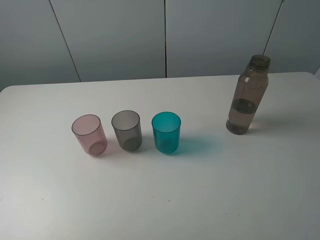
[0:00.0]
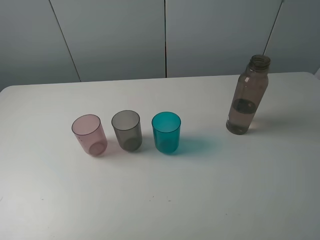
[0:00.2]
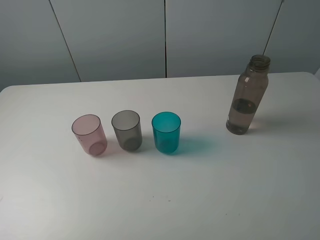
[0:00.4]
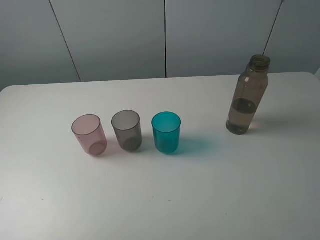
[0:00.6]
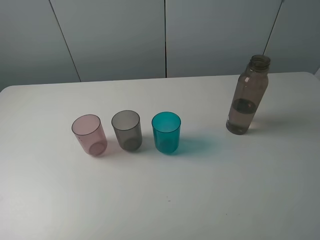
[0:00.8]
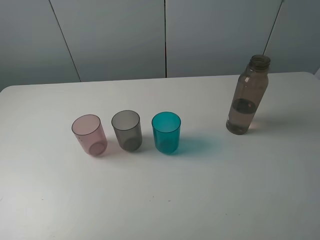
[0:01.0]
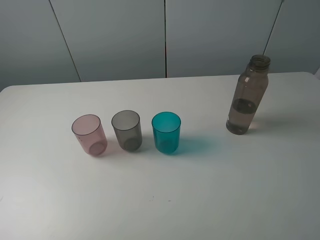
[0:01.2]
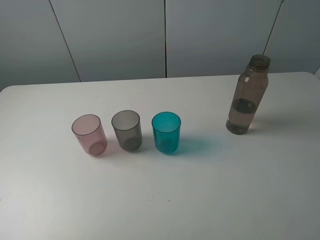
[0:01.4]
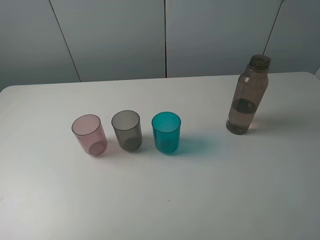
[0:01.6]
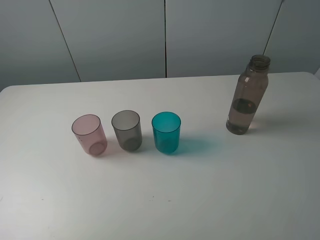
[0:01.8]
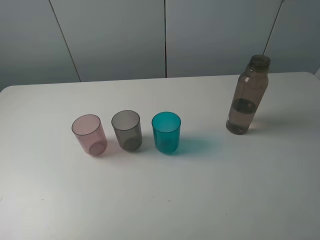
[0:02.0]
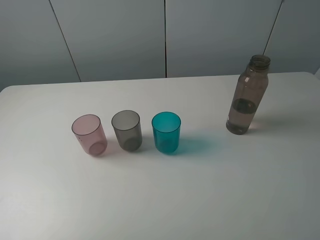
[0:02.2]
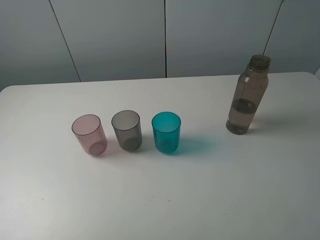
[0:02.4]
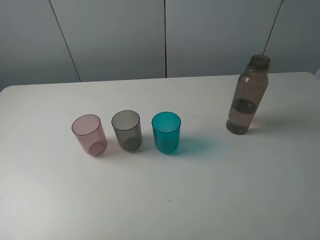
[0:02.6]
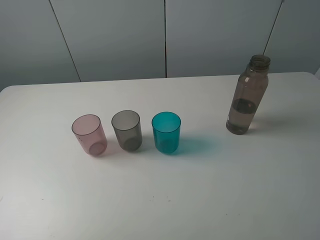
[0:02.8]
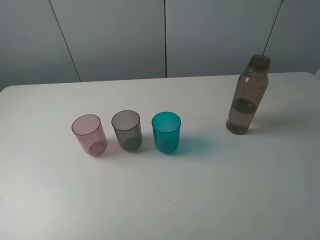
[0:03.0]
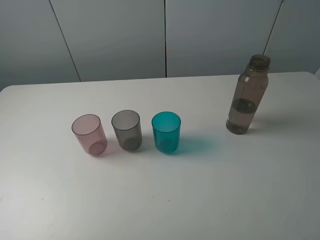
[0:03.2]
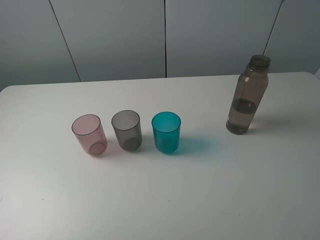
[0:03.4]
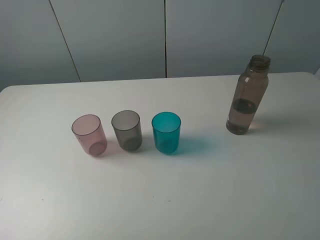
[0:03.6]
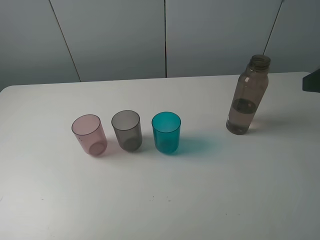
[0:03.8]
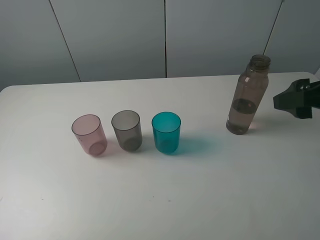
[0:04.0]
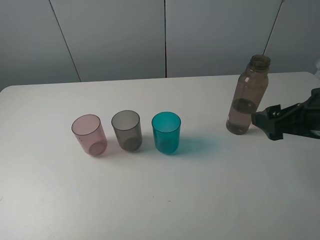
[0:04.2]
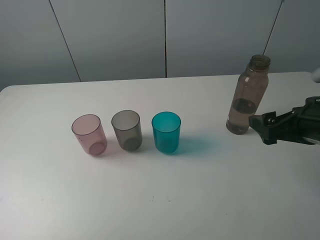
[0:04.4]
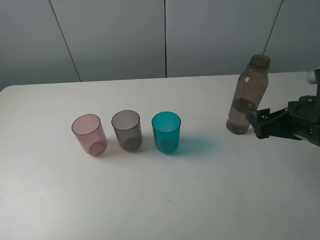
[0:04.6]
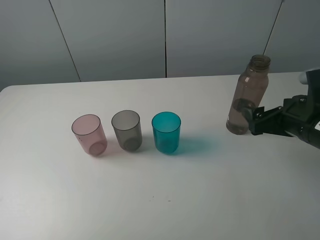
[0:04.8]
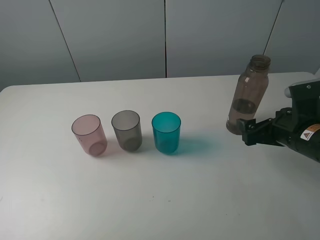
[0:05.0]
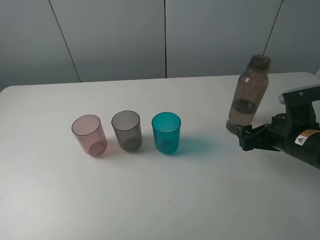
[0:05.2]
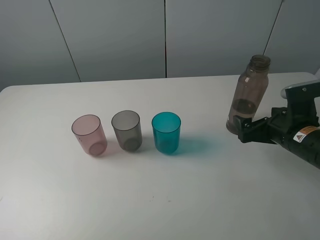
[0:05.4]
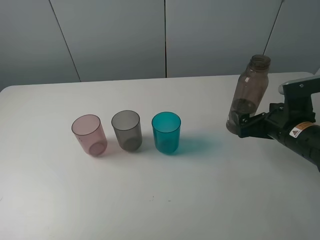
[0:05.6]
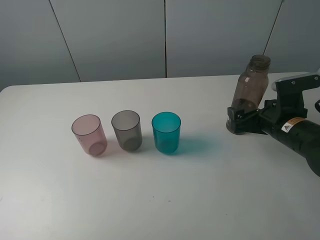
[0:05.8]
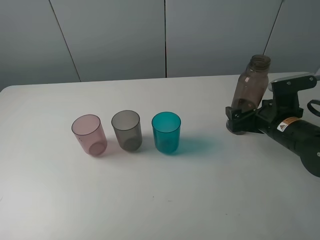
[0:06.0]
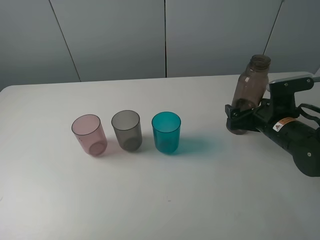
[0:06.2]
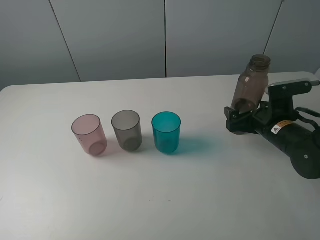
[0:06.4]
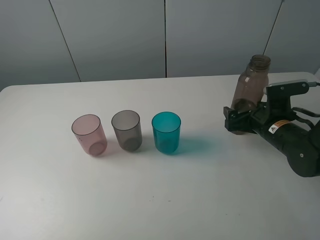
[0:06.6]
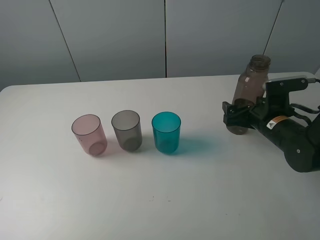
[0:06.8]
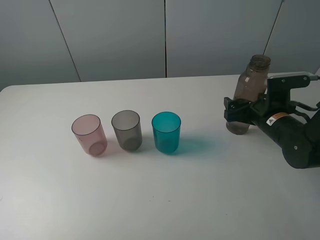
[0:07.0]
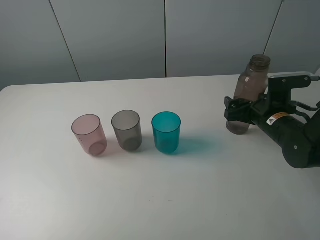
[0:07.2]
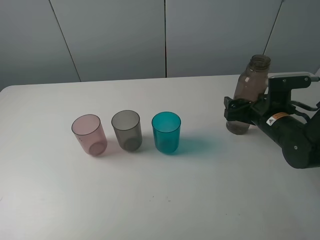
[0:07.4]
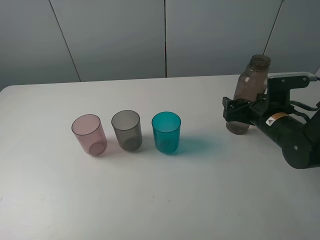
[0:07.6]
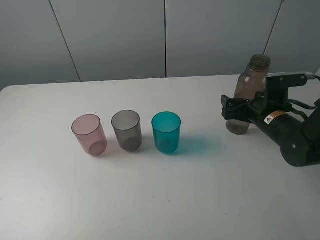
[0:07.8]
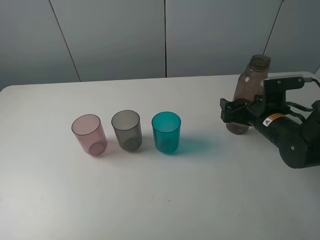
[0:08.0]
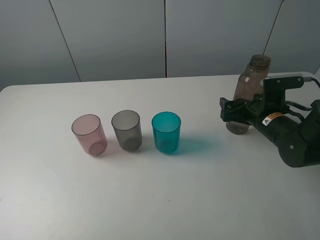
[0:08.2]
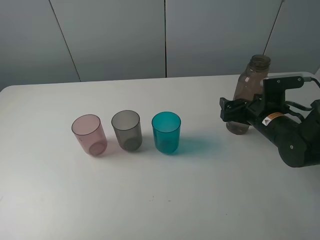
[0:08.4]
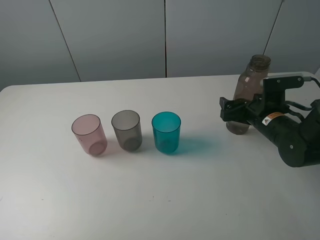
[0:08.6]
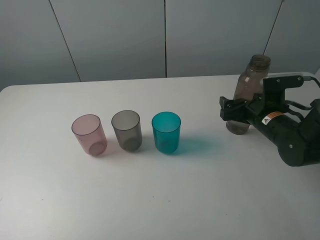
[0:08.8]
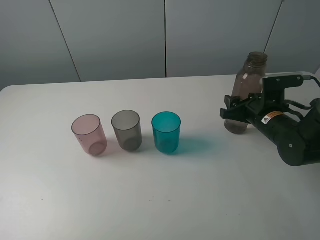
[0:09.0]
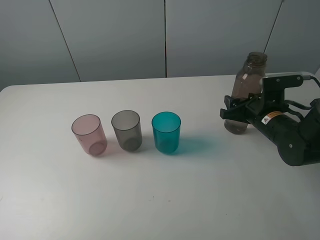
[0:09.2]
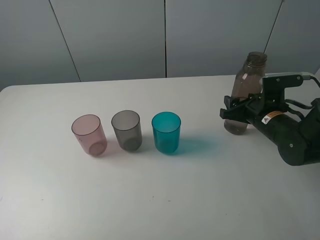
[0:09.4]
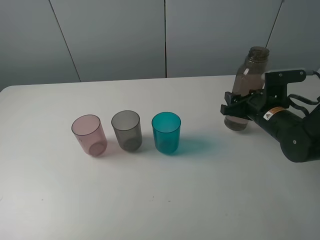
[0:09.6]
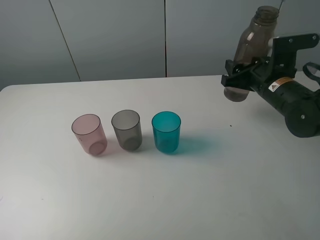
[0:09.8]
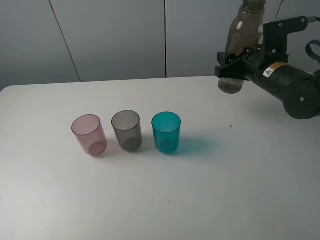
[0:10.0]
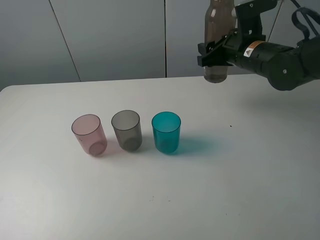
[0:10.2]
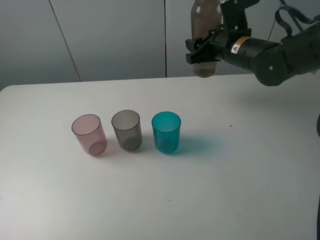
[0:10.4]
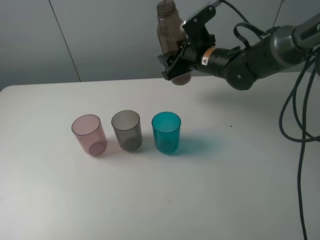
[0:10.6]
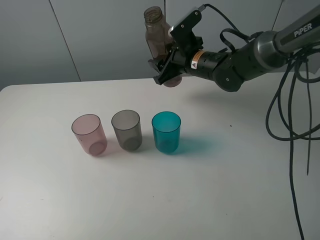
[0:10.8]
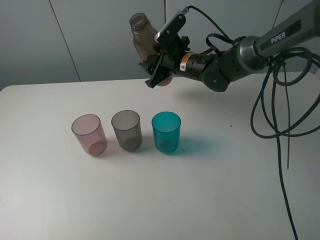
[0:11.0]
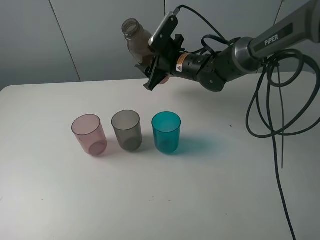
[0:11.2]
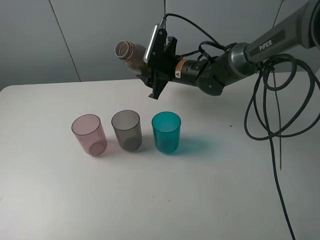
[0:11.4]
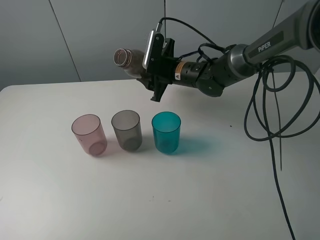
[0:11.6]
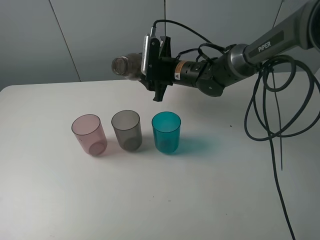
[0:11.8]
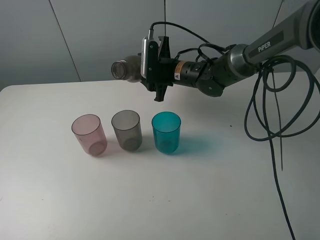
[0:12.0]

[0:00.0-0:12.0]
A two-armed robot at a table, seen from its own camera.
Task of the whole recording: pick up the bottle filled with water and pour water into the middle cup of the three cups.
Step, 0:00.0 to 0:09.2: Grasp the brown bottle with the right gripper.
0:00.0 to 0:03.0: Neither gripper changes place.
0:03.0 to 0:04.4: The right gripper travels forward and downward by approximately 20 cm.
0:04.4 to 0:06.0: The right gripper shifts roughly 10 cm downward and forward.
0:06.0 to 0:07.6: The grippers make only small movements.
0:07.6 to 0:09.0: The right gripper closes.
0:09.0 to 0:10.4: The right gripper shifts approximately 15 cm upward, forward and to the left.
0:10.4 to 0:12.0: The right gripper moves to the left and downward, approximately 10 cm.

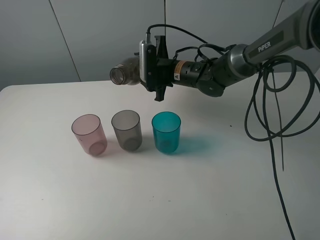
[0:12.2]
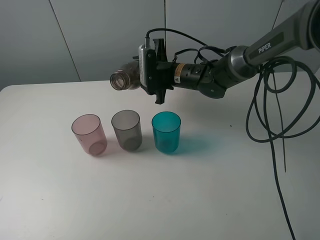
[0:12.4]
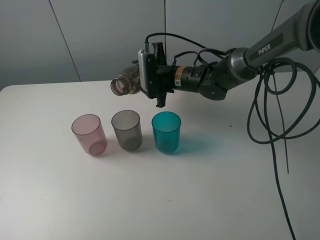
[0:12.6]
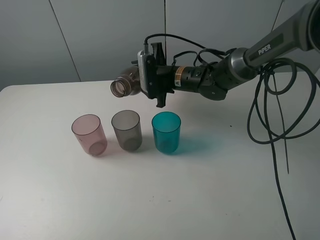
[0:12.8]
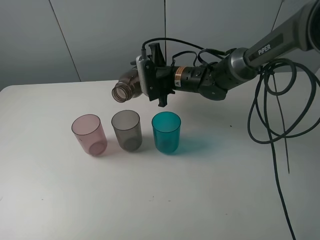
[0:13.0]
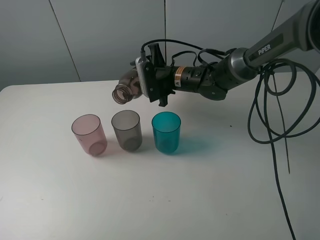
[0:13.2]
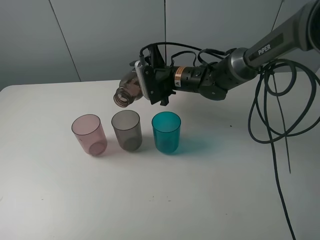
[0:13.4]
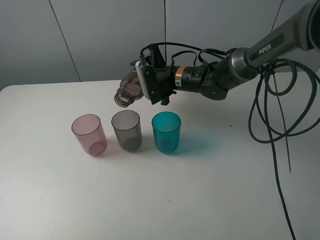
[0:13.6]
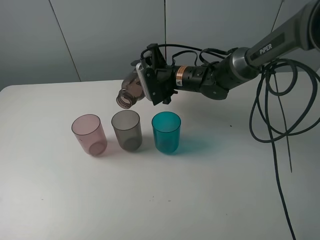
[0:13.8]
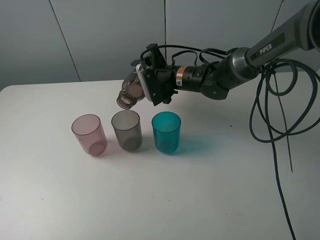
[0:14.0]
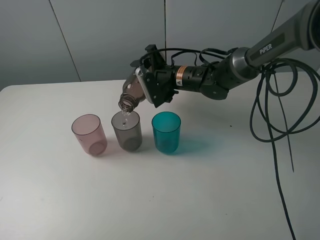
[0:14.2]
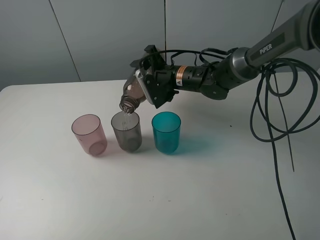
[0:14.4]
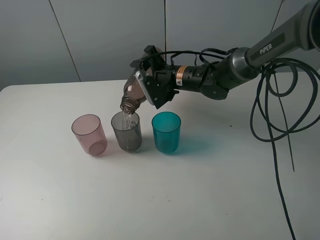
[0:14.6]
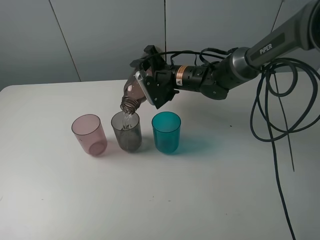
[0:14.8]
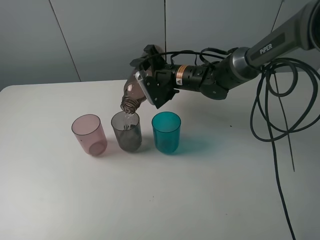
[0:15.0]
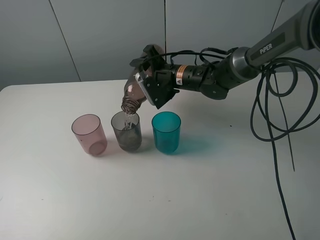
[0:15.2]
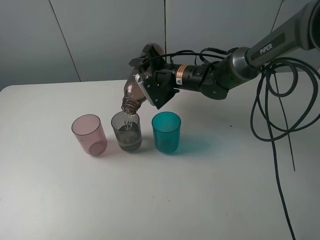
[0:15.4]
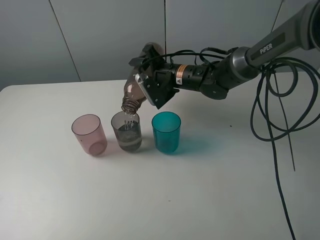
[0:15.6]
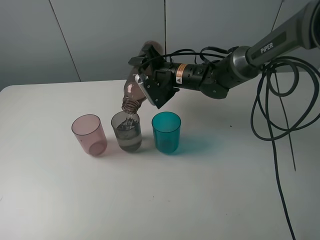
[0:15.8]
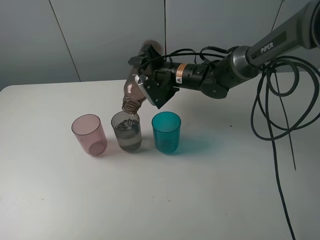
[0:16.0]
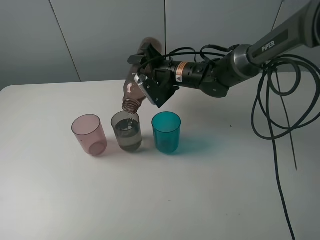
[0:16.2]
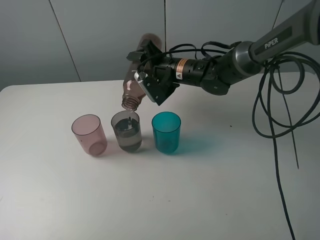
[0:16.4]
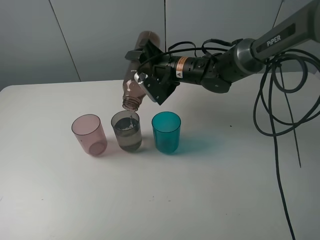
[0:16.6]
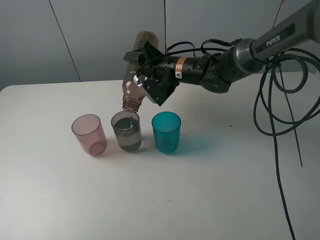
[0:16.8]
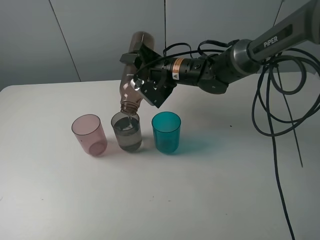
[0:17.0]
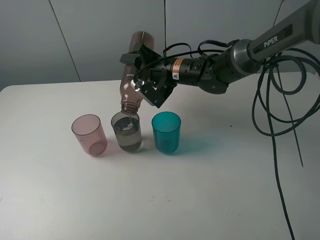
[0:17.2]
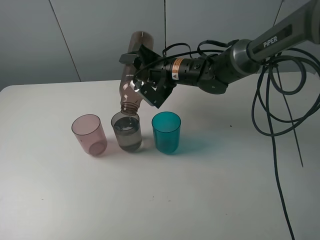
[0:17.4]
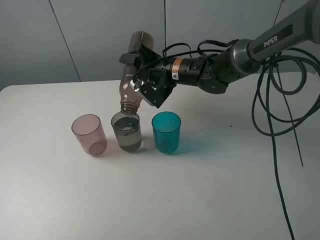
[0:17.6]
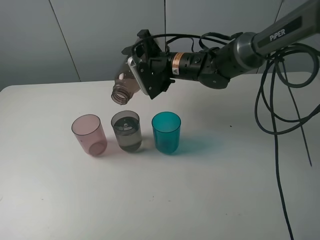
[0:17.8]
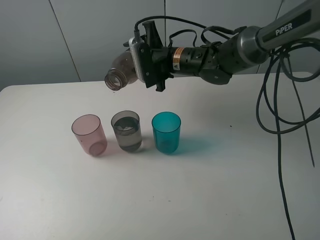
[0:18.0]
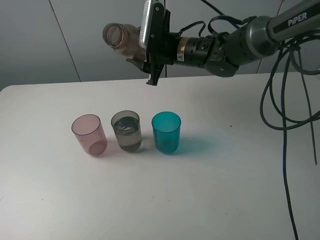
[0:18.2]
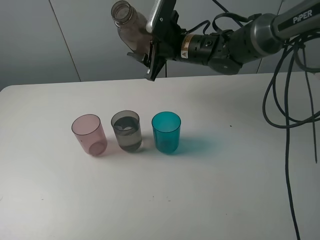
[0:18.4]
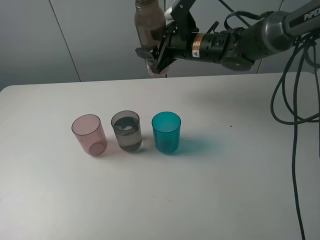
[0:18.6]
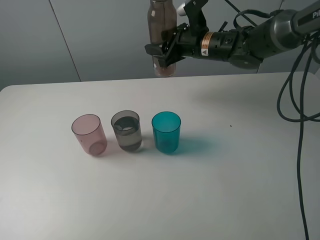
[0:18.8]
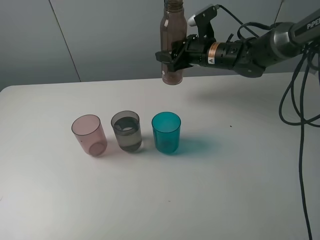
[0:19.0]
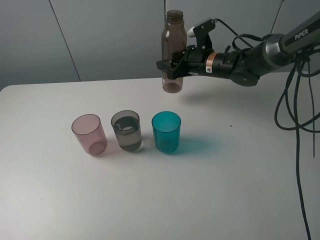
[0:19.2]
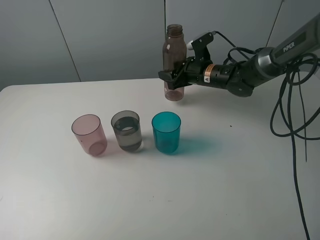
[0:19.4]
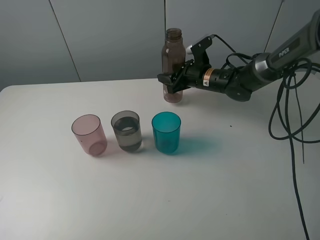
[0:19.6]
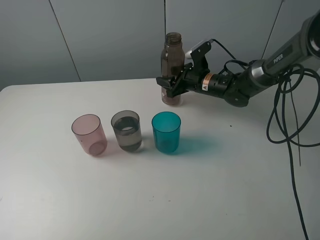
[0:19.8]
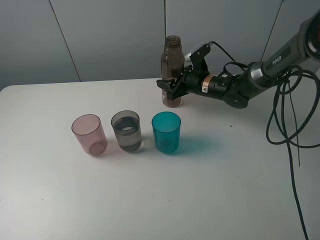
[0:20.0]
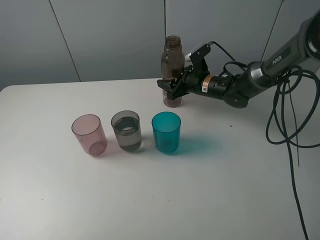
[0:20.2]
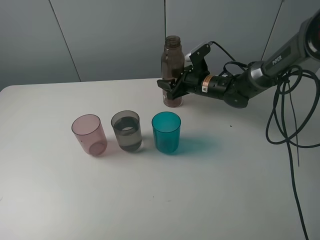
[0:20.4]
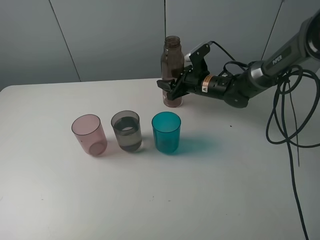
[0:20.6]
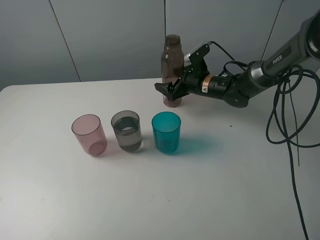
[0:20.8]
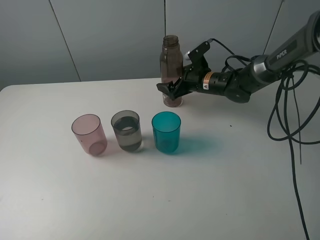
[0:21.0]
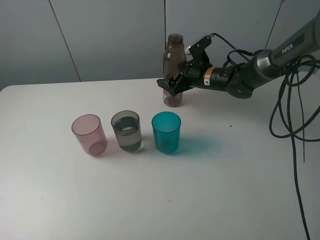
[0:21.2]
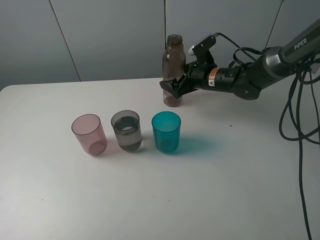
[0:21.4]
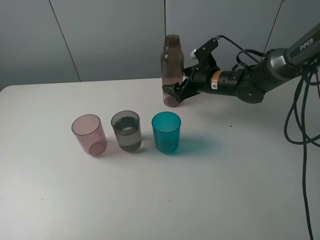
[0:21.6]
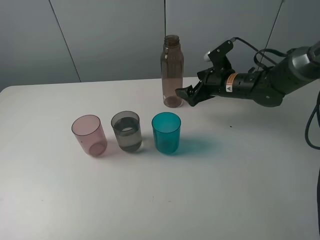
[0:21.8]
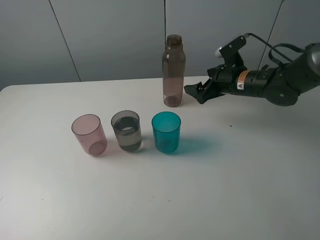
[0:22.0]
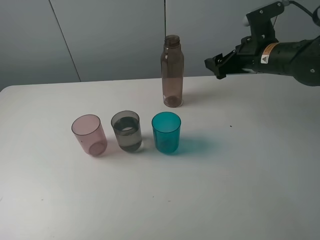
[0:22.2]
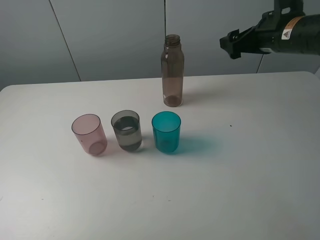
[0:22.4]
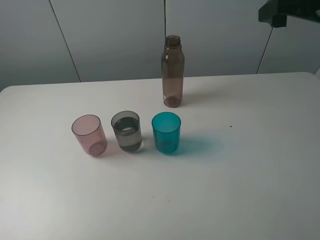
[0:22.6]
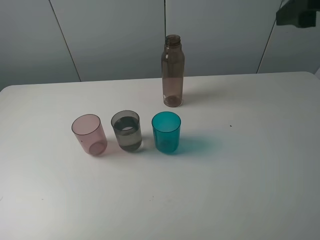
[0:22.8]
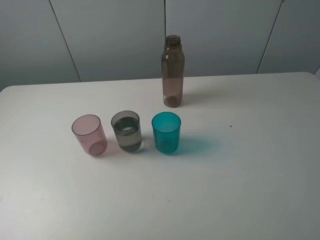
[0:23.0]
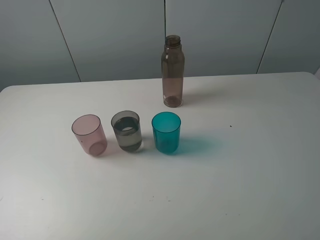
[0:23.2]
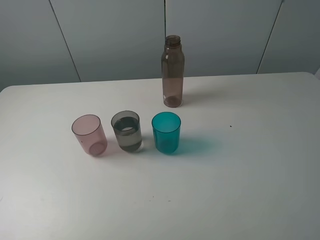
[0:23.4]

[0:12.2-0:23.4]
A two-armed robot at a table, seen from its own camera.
Task of the whole recording: pick up the bottle filled with water and pour water into the middle cup of the three cups.
Step, 0:14.0 to 0:21.2: Place the brown bottle with the right gripper.
0:13.8 to 0:15.4: The grippers stay close to where they were, moving slightly.
0:15.4 to 0:17.0: There are only small adjustments of the grippers.
0:17.0 to 0:18.6: The right gripper shifts by approximately 5 cm.
0:18.6 to 0:20.2: The right gripper is displaced downward by some 10 cm.
0:20.2 to 0:21.8: The right gripper moves to the right, roughly 5 cm, and opens its fingers.
0:21.8 to 0:23.4: The right gripper is displaced backward and upward by about 40 cm.
